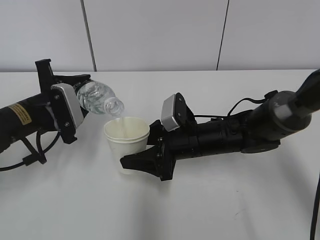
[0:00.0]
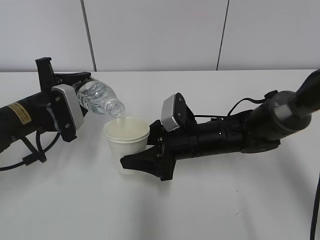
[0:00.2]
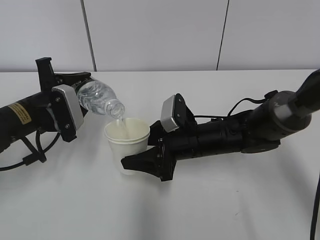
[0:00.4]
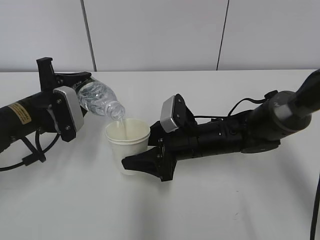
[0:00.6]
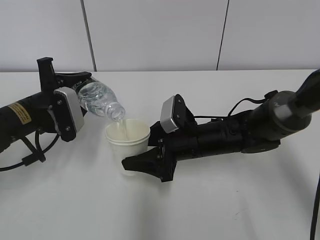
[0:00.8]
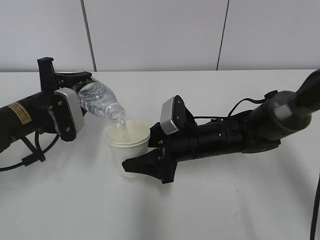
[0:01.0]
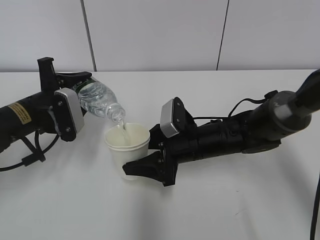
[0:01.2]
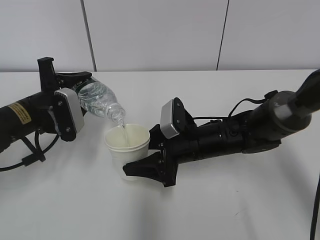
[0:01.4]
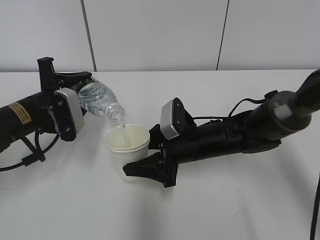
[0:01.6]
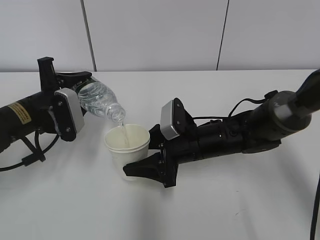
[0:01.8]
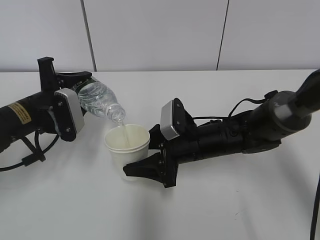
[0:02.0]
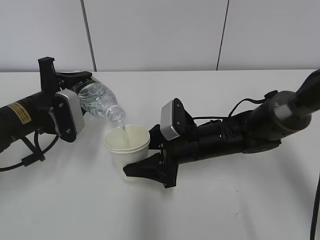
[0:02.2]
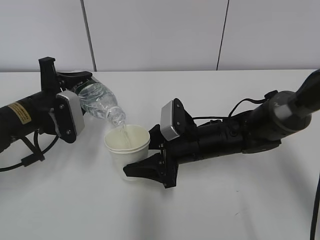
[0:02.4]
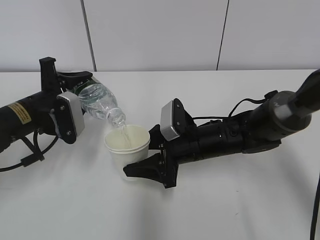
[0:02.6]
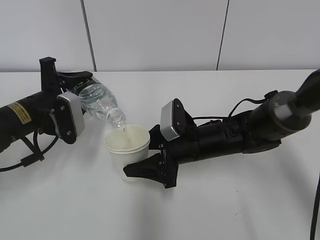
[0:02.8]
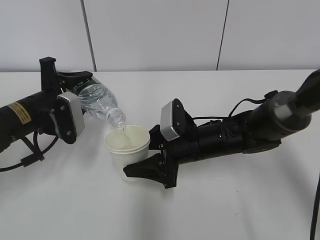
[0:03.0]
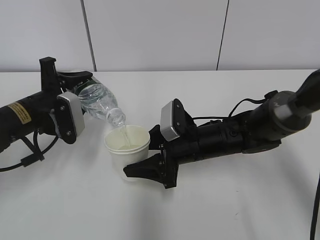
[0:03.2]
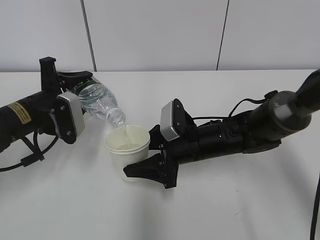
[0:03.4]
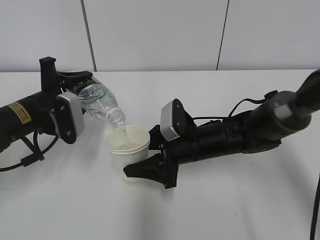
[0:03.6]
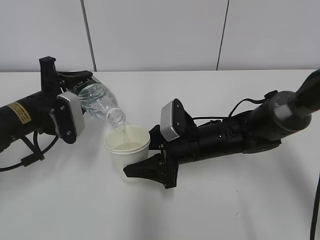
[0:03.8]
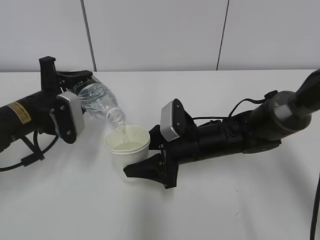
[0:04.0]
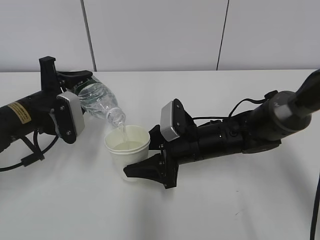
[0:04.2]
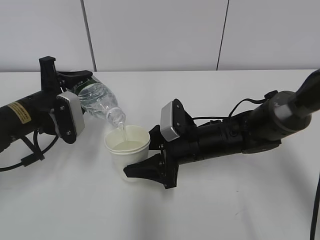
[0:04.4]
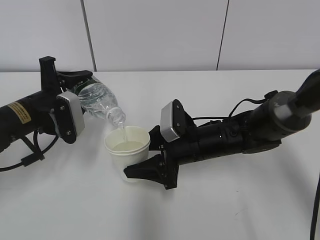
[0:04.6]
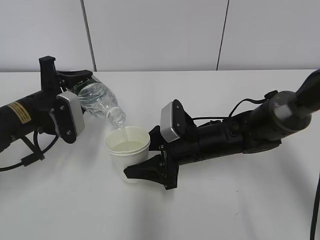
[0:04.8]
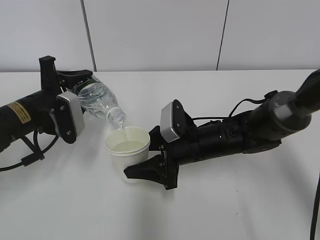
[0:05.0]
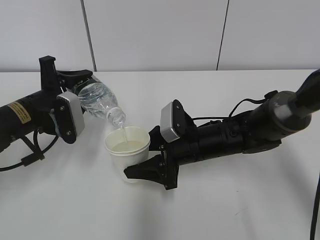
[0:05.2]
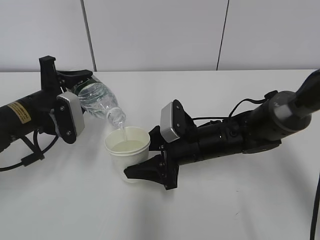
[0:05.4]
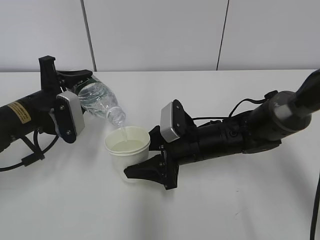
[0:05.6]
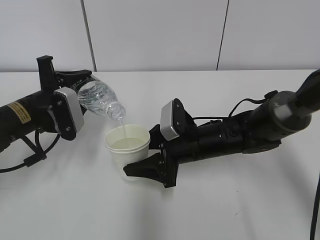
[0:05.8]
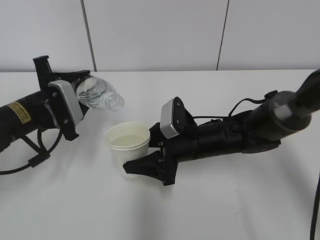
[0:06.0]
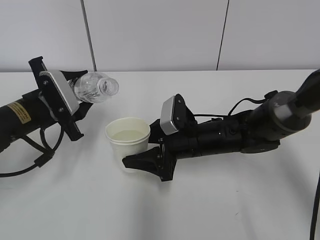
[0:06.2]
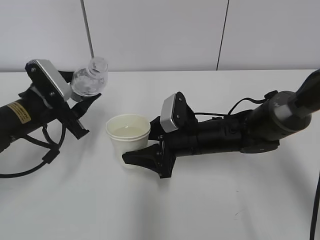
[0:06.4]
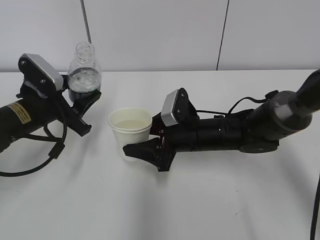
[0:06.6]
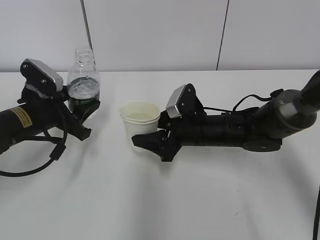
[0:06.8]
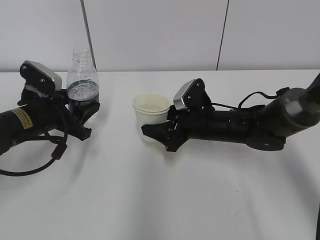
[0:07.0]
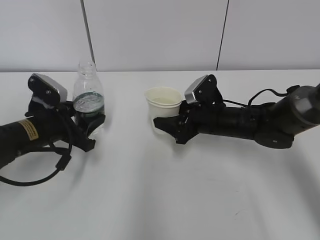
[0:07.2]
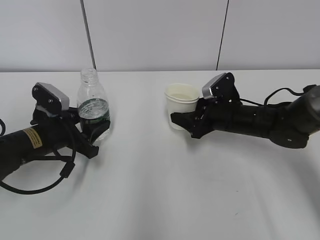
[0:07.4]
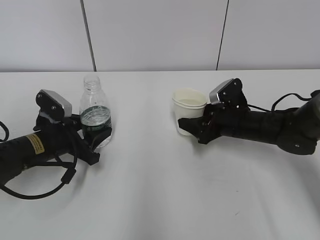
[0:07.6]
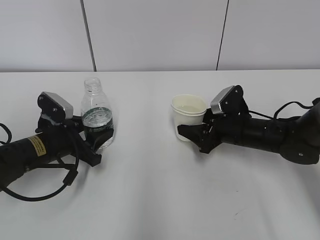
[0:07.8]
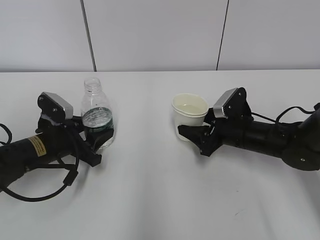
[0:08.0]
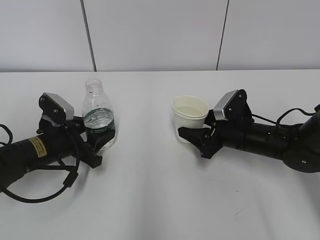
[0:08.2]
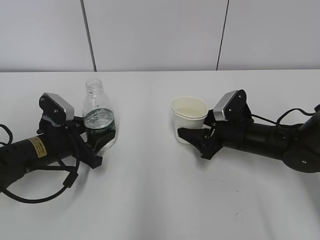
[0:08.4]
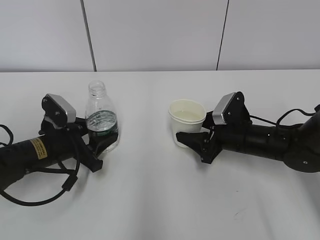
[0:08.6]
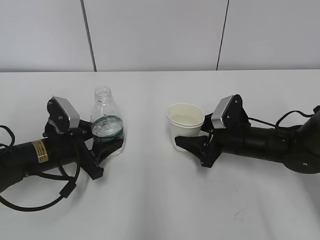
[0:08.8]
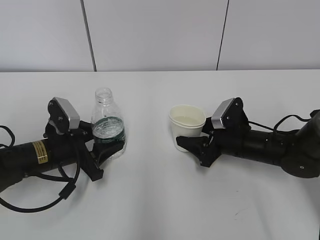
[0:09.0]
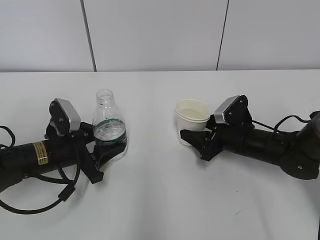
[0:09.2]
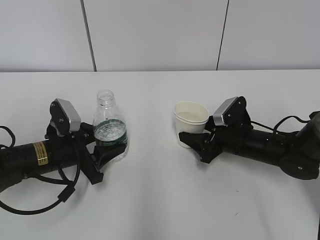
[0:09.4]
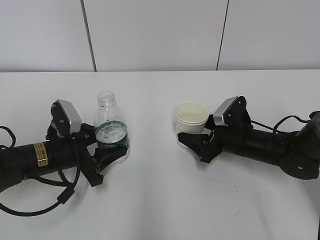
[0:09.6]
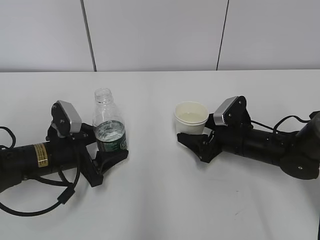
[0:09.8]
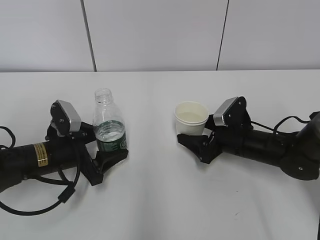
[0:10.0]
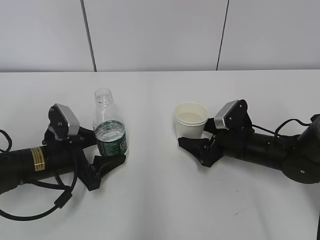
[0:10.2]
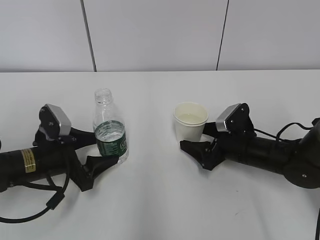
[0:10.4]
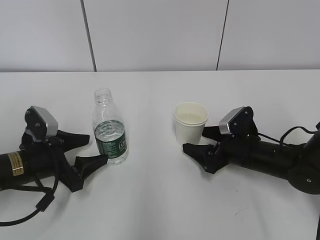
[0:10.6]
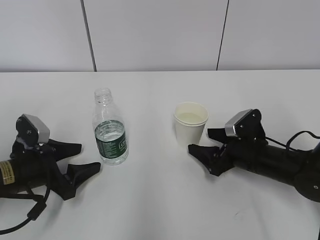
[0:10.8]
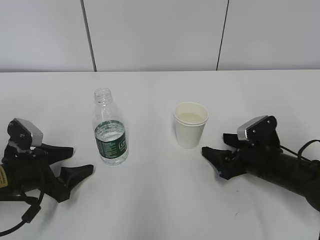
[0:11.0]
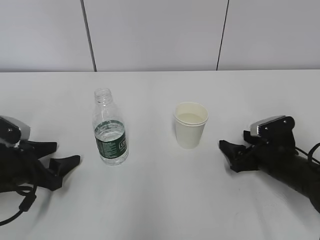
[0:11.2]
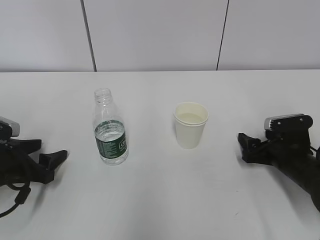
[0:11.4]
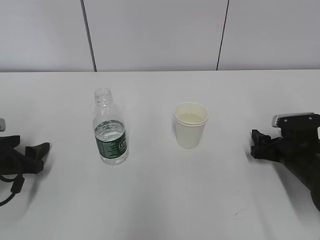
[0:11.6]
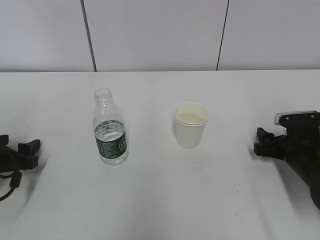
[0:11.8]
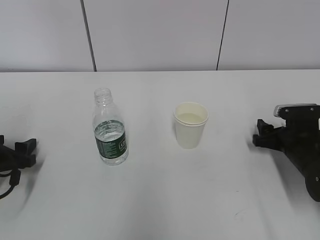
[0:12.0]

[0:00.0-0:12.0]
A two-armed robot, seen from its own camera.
0:00.0 to 0:01.6: The grippers stay close to where they were, moving slightly.
0:01.6 to 0:03.0: Neither gripper changes place.
0:03.0 to 0:04.4: The two grippers keep their place.
0:04.4 to 0:06.0: The grippers move only a little.
0:06.0 to 0:07.6: The left gripper goes roughly 5 cm downward, while the right gripper heads to the right, covering approximately 10 cm.
0:07.6 to 0:09.0: There are only small adjustments of the grippers.
0:09.0 to 0:10.4: The right gripper opens up. Meanwhile the left gripper opens.
0:10.4 to 0:12.0: The right gripper is displaced to the right by roughly 10 cm, and closes its fingers. The left gripper goes roughly 10 cm to the left.

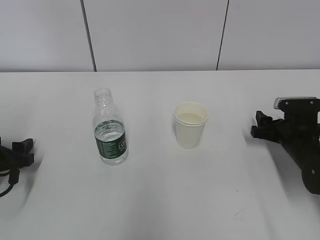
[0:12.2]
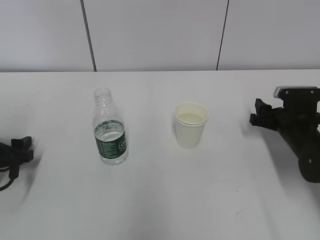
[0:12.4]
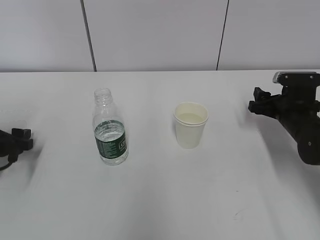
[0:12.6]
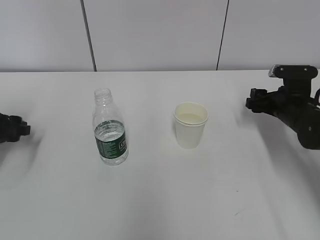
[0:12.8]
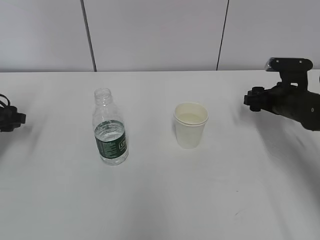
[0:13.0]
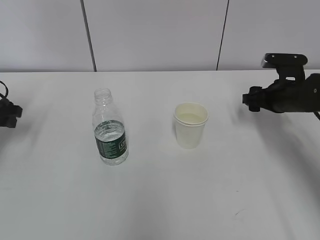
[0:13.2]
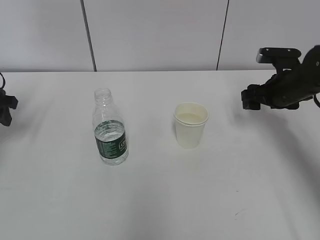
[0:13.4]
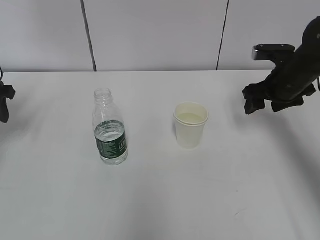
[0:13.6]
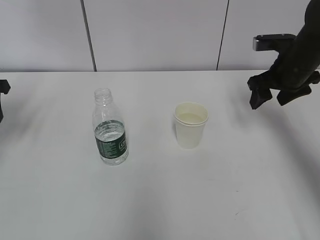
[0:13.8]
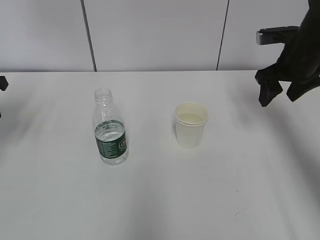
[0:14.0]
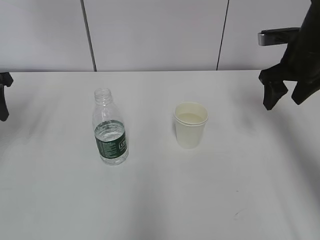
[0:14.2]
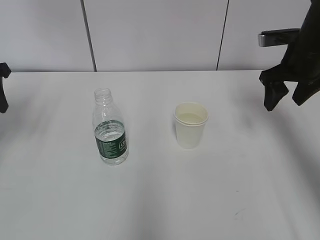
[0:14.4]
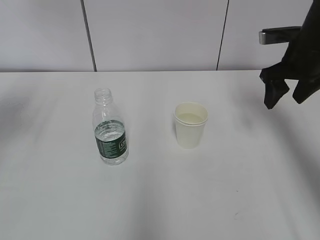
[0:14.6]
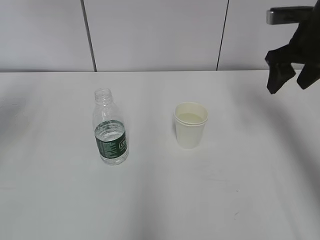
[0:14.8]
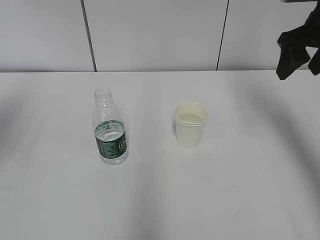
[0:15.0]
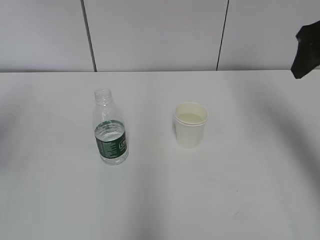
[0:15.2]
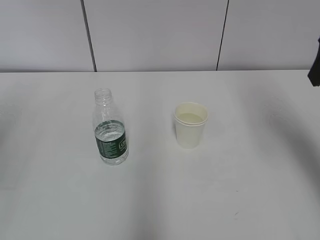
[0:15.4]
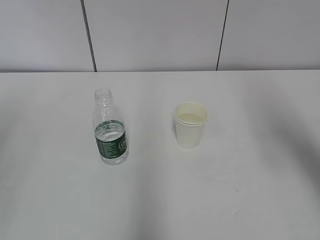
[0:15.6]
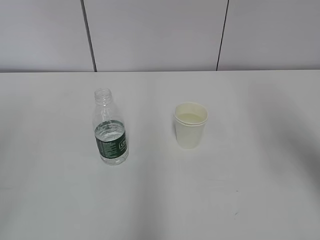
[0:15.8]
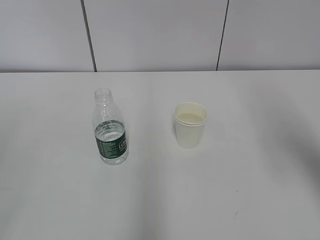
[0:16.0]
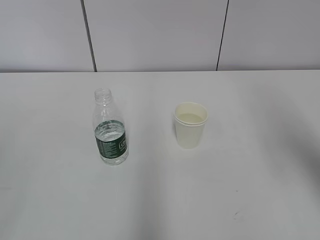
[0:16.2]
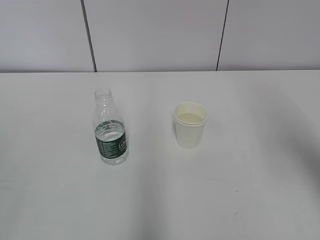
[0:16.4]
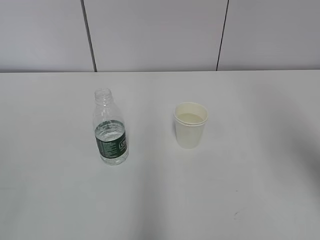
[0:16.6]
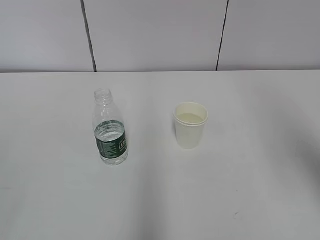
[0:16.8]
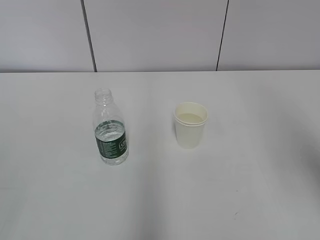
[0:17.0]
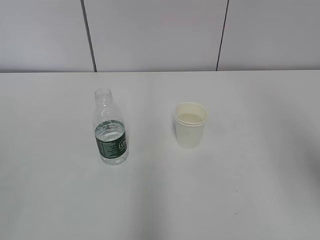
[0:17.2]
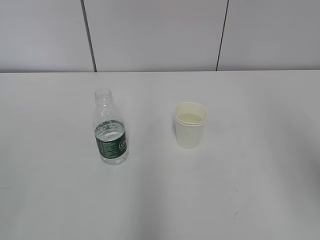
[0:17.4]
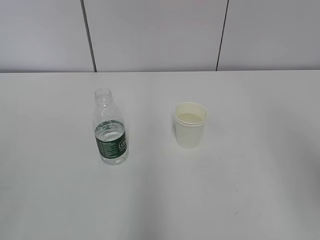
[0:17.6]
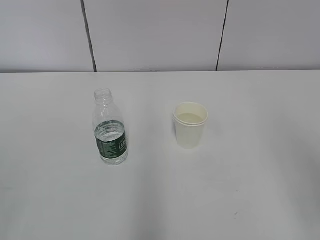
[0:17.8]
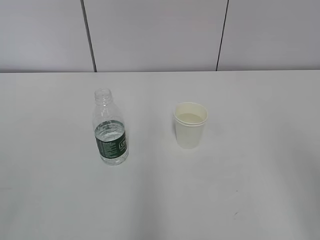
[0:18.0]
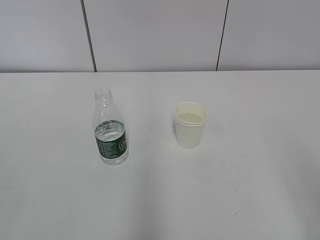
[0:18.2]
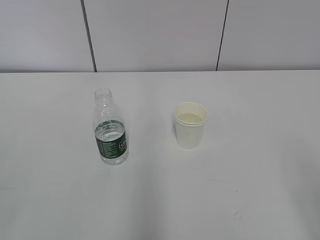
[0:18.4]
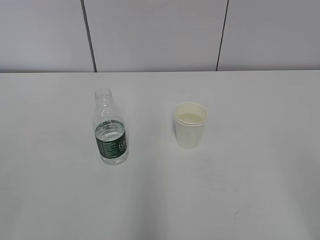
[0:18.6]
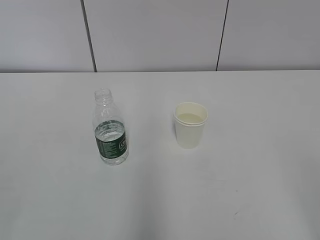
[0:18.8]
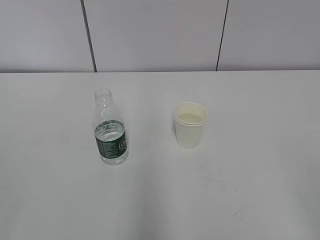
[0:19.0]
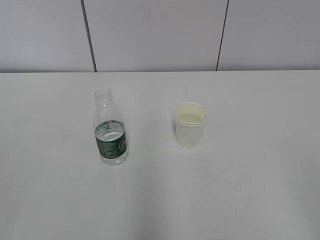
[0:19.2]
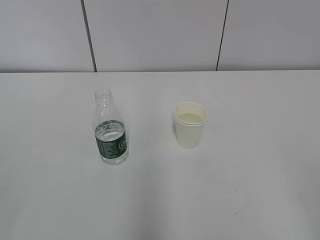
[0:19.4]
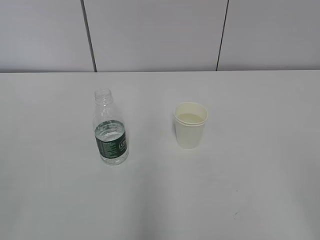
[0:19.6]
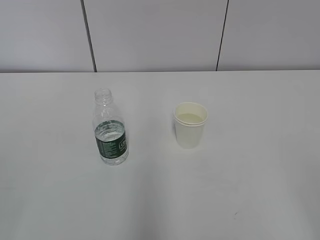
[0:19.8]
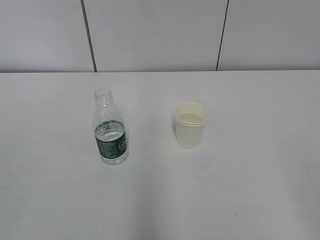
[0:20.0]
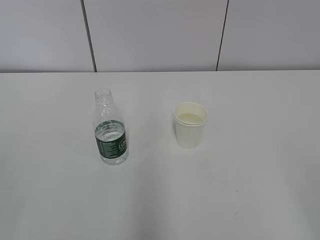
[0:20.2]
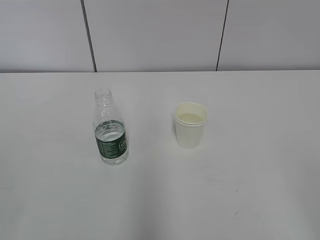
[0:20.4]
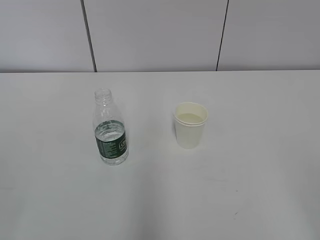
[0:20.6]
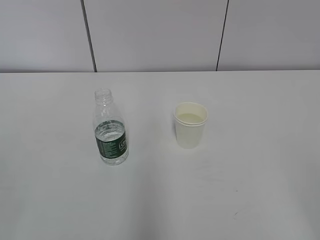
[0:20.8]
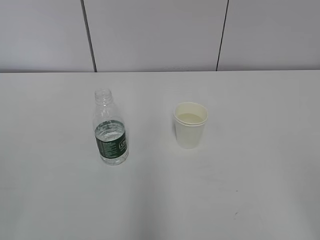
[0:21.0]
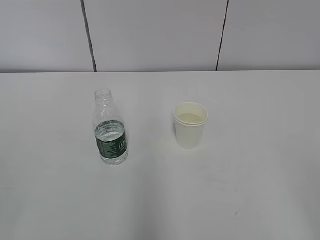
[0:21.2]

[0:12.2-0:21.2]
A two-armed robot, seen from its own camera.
0:12.2 to 0:13.8: Both grippers travel together upward and forward, some 20 cm.
0:13.8 to 0:15.2: The right gripper moves upward and backward, approximately 15 cm.
0:15.2 to 0:16.6: The right gripper heads backward, covering about 15 cm.
0:16.6 to 0:18.2: The right gripper moves backward and downward, roughly 15 cm.
0:19.8 to 0:21.2: Both grippers stay about where they are.

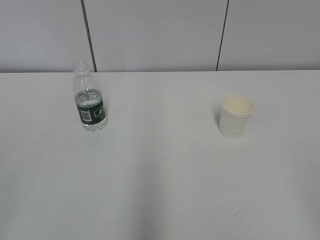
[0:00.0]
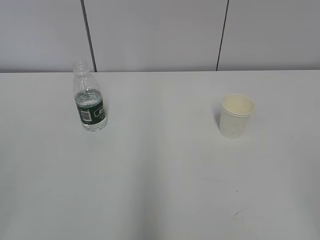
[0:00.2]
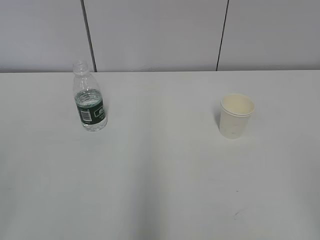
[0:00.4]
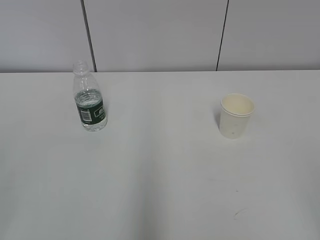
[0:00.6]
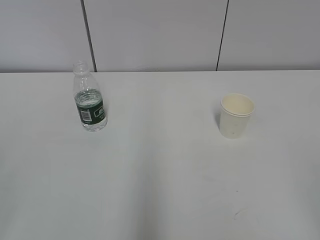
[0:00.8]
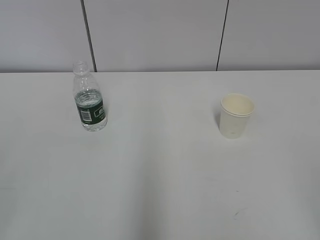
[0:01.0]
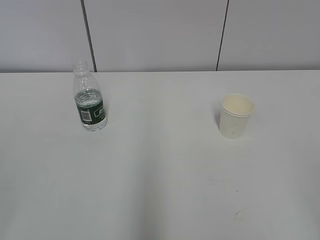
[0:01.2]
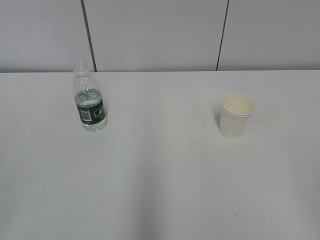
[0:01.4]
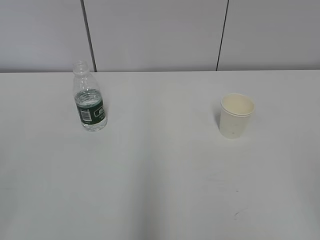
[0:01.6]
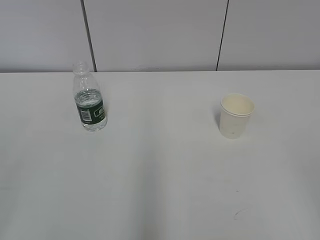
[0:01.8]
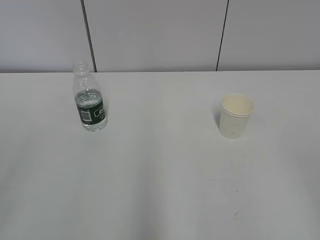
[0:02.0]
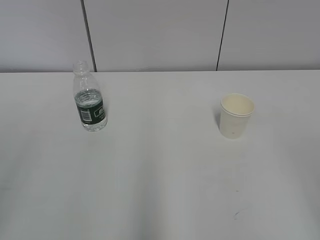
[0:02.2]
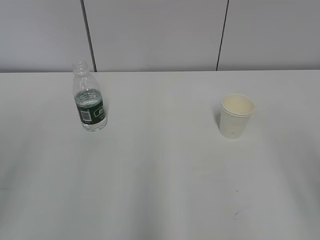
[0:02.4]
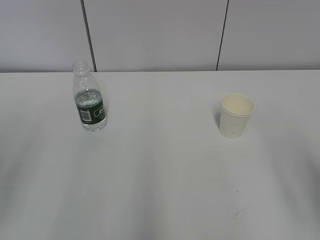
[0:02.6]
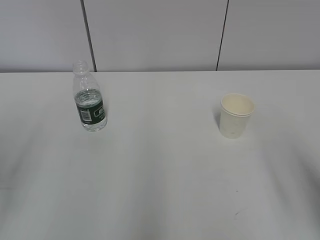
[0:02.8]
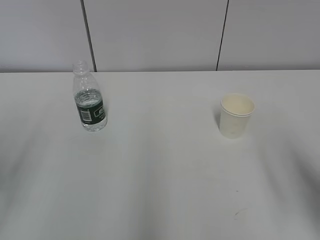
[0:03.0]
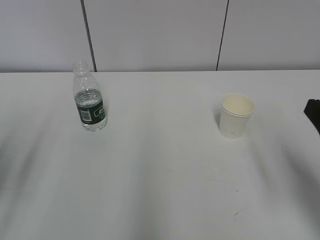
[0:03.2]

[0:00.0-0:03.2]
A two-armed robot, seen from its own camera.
0:01.6 to 0:03.2: Both grippers travel together forward, about 15 cm.
